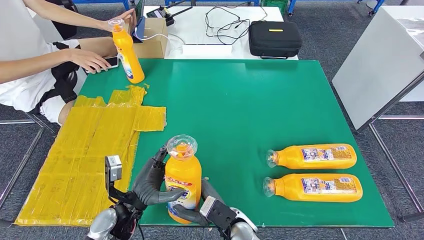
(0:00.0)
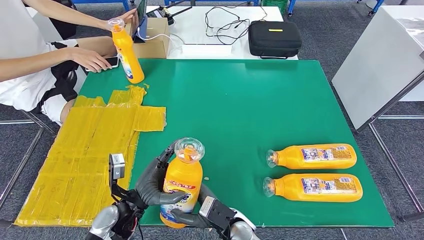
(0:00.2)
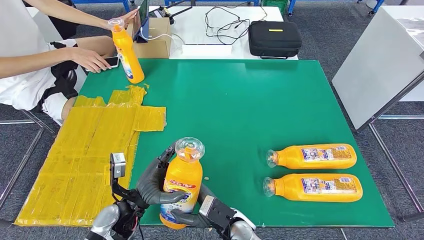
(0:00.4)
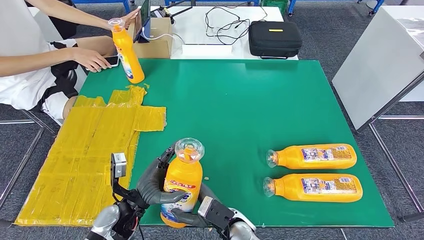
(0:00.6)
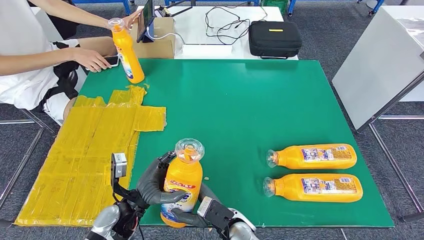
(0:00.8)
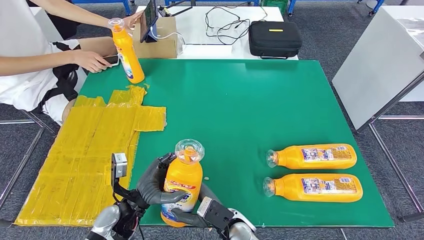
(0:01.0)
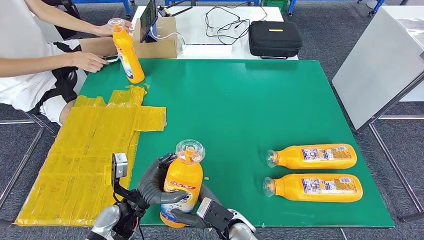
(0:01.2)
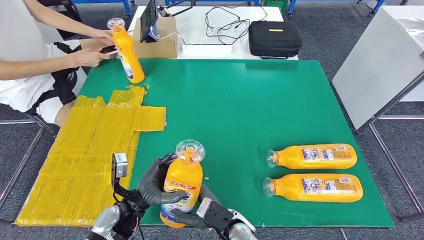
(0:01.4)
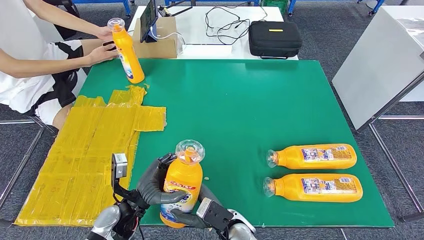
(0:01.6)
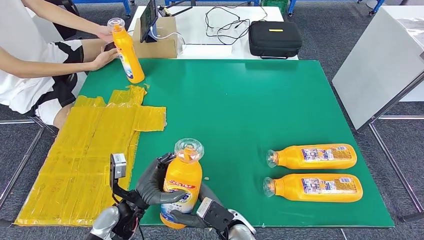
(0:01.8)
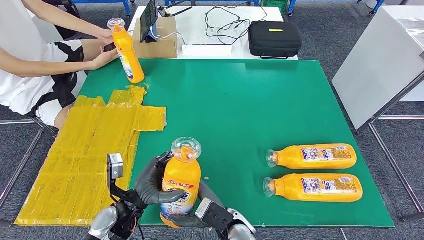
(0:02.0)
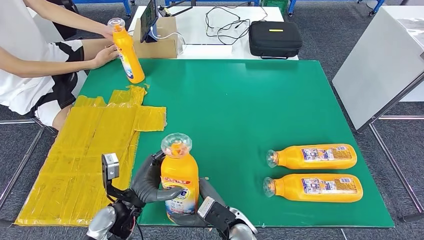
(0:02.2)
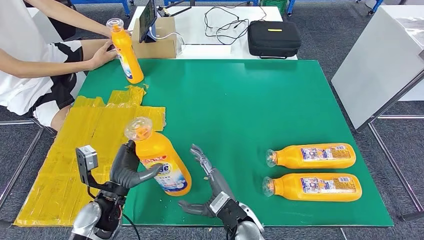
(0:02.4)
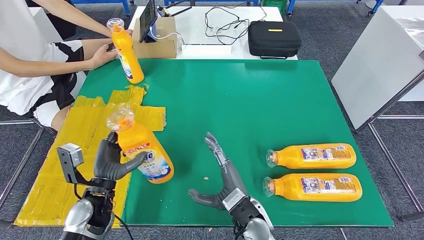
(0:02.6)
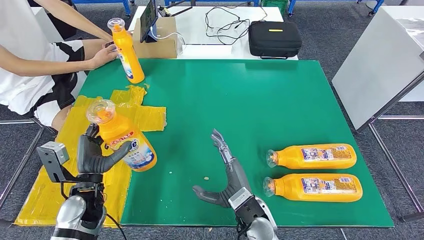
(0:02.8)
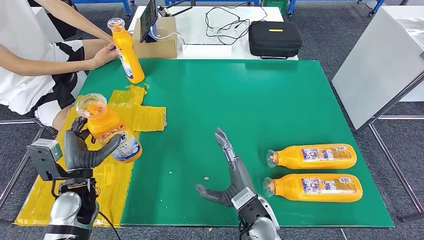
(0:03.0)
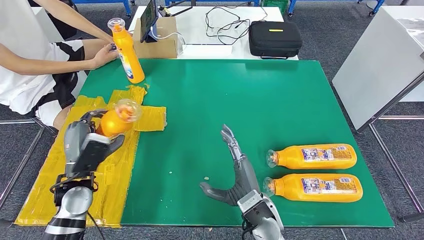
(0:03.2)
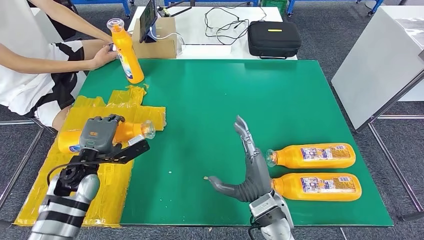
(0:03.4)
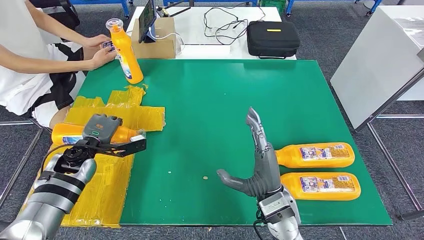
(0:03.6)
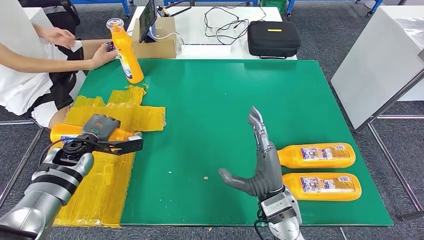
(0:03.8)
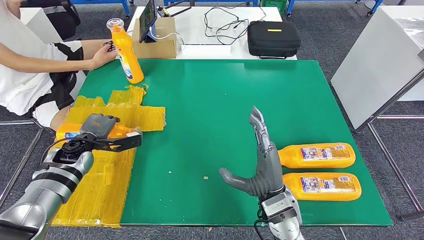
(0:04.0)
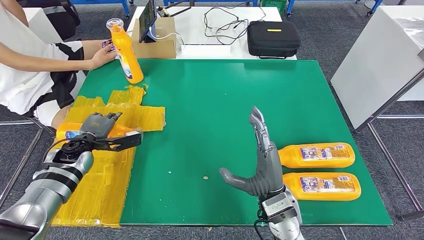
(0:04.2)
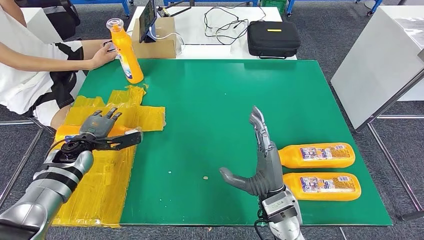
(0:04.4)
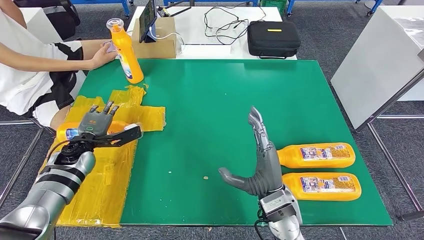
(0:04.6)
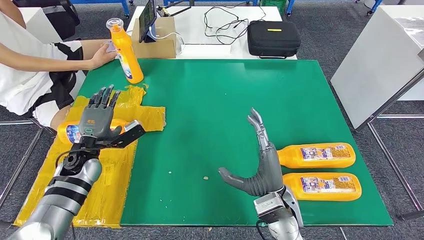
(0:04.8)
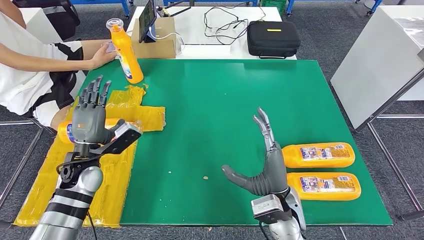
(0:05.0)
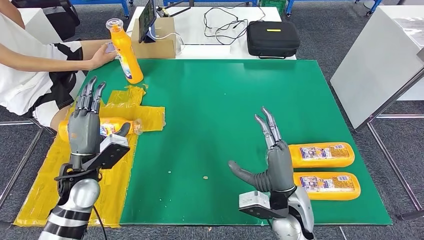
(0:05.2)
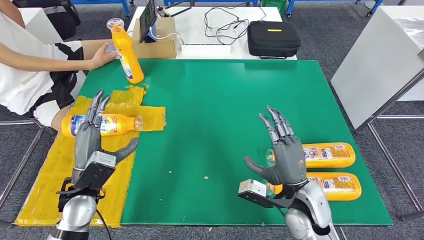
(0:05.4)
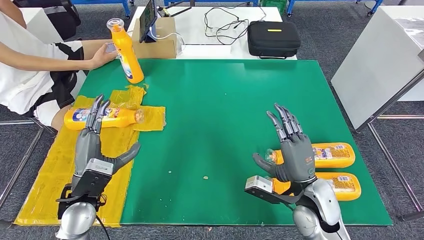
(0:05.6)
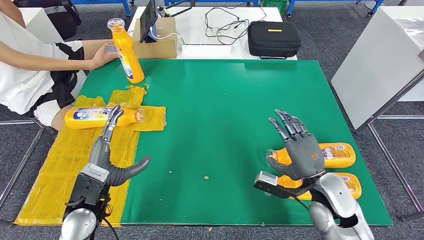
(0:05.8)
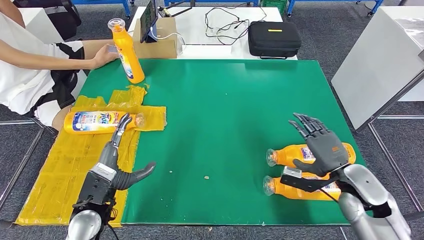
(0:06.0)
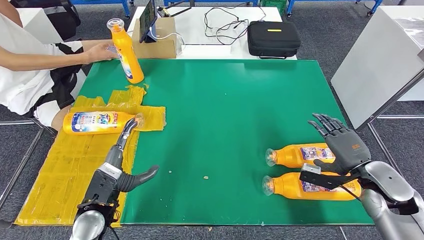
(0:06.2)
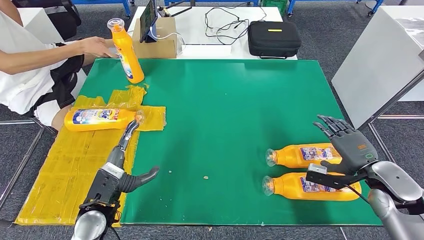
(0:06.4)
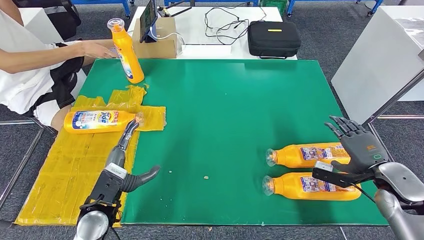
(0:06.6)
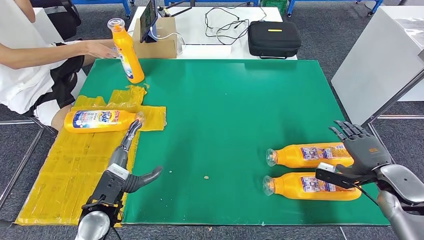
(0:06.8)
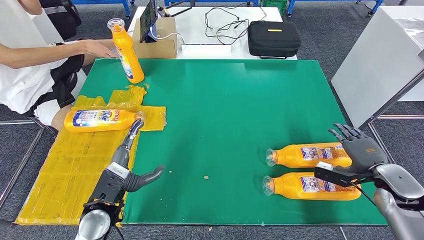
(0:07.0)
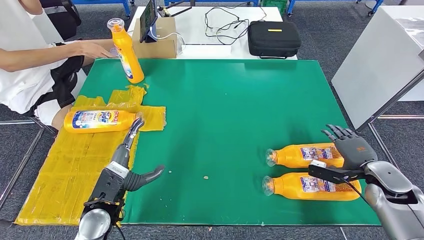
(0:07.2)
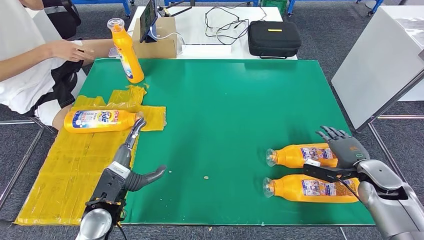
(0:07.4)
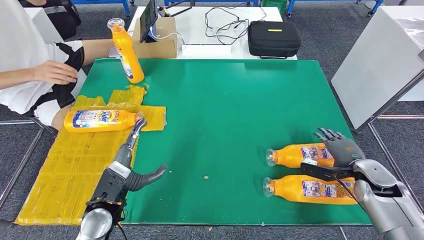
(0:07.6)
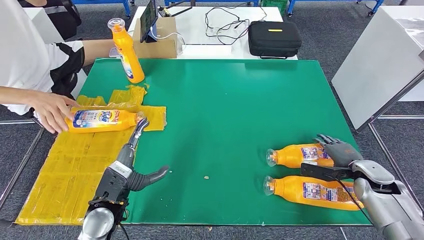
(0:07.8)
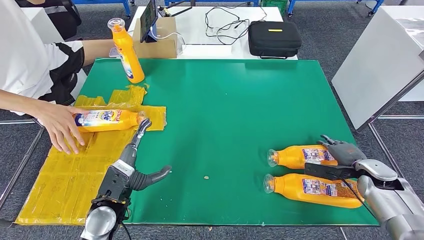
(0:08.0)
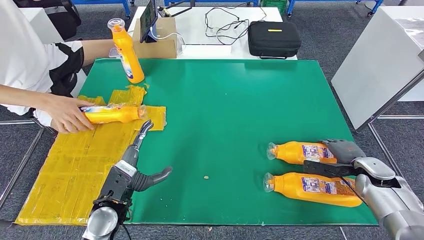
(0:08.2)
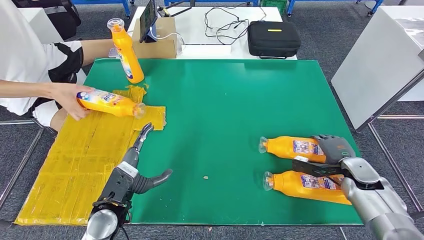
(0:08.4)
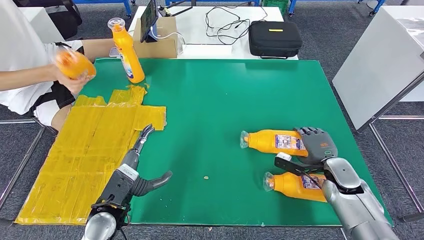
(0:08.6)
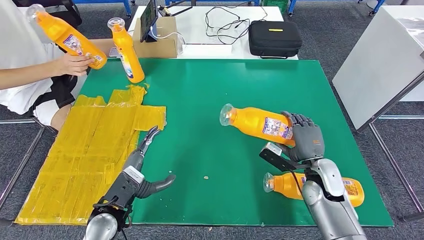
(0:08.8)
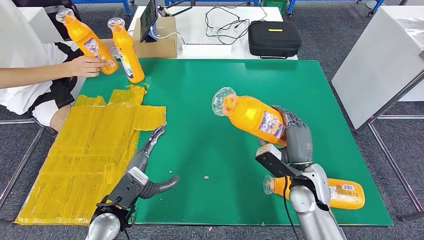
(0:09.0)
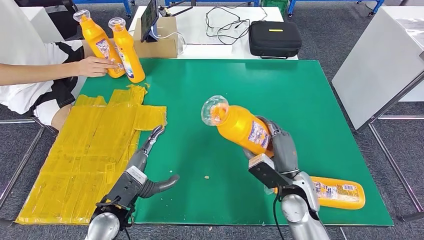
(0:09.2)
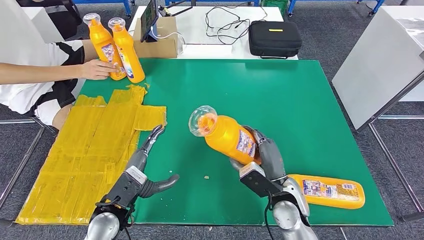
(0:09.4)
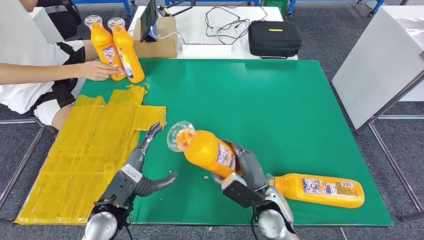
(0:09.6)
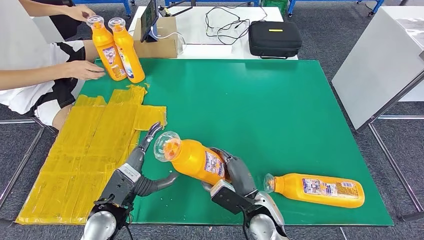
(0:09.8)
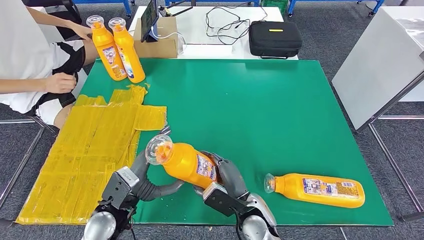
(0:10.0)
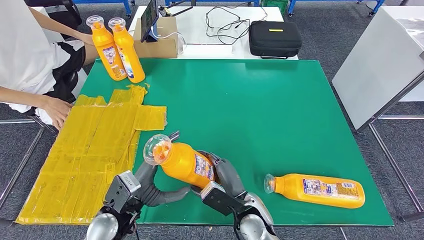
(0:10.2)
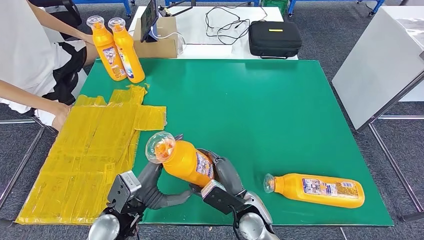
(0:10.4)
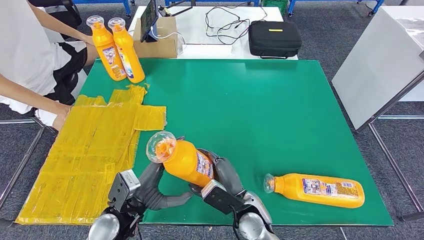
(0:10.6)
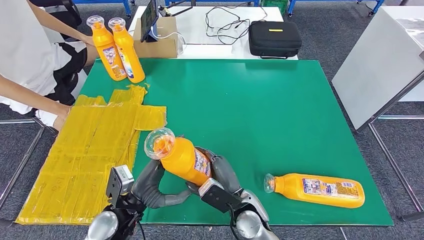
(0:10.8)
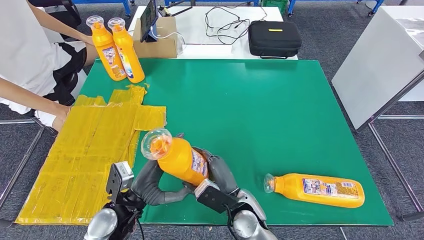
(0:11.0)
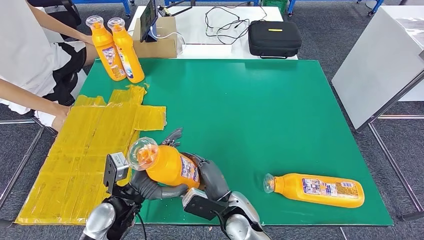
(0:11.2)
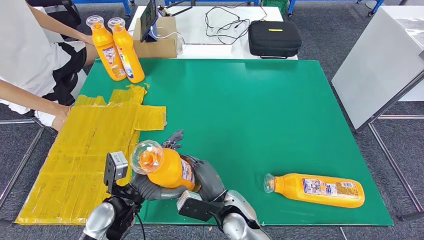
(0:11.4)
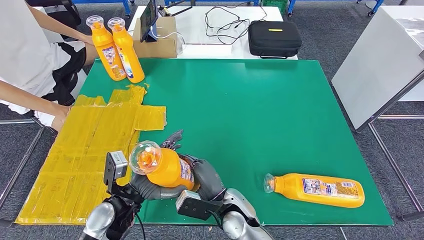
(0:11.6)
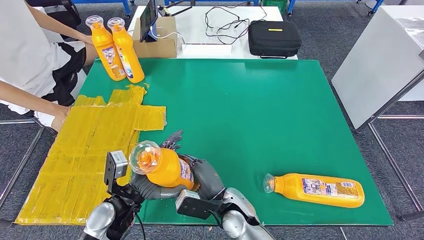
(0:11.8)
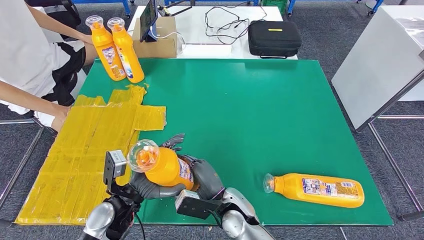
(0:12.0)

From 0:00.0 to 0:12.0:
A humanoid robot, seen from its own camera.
Step, from 0:00.0 to 0:05.6: Flip the fast-moving consumer goods bottle to the front side.
Step, from 0:05.8 to 0:10.2: Pick up the fast-moving consumer goods bottle from the table.
From 0:00.0 to 0:01.6: There are only small adjustments of the hands.
From 0:01.6 to 0:03.0: The right hand shifts about 5 cm upward. The left hand travels to the left and upward by roughly 10 cm.
From 0:06.0 to 0:07.6: The right hand travels to the right by approximately 10 cm.
From 0:10.4 to 0:12.0: There are only small adjustments of the hands.

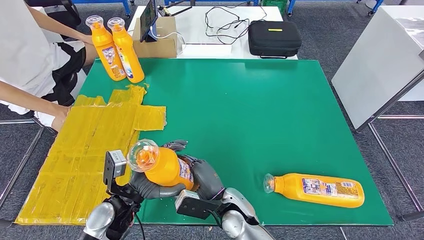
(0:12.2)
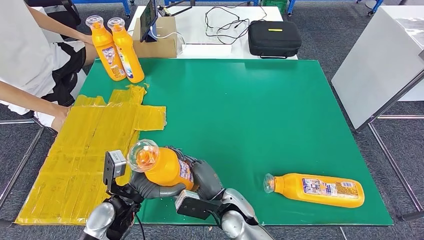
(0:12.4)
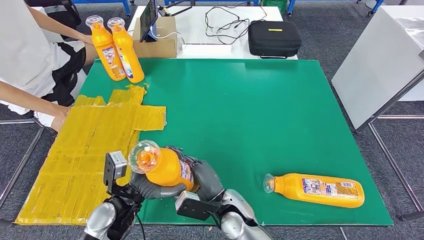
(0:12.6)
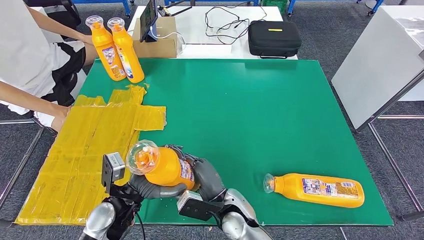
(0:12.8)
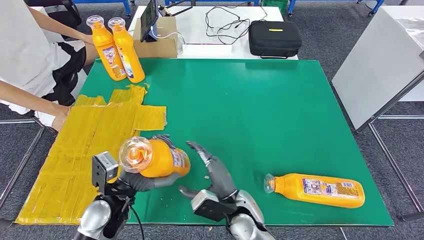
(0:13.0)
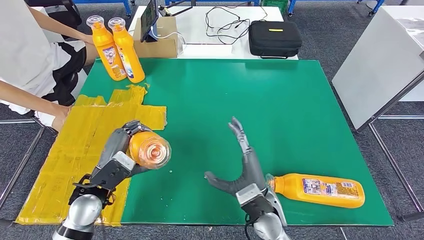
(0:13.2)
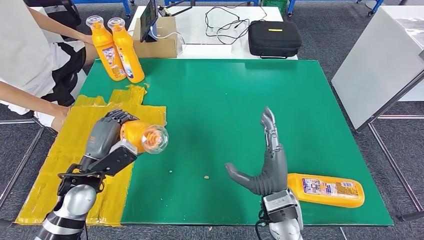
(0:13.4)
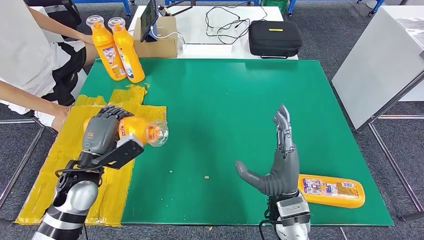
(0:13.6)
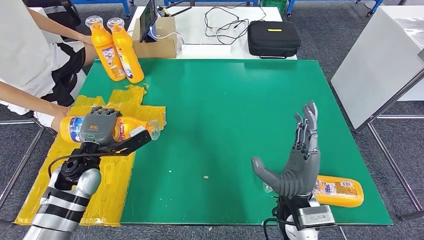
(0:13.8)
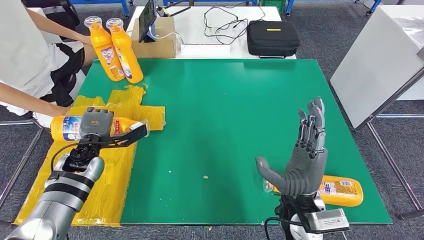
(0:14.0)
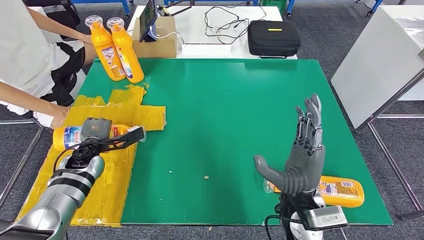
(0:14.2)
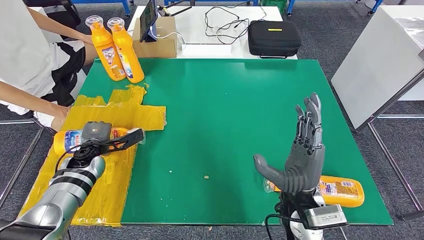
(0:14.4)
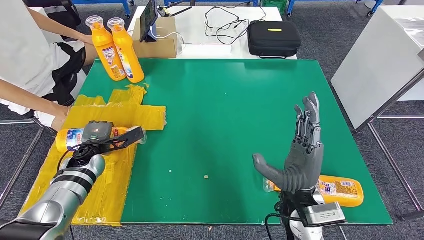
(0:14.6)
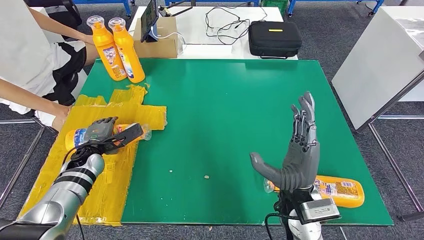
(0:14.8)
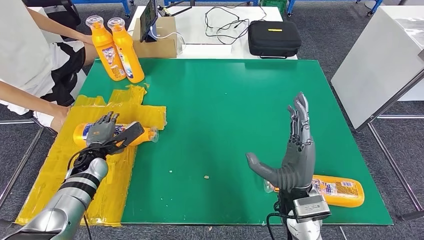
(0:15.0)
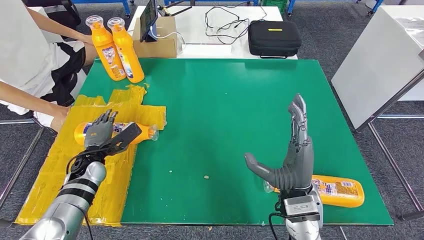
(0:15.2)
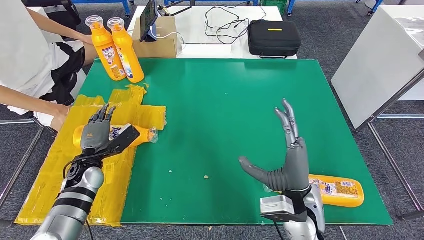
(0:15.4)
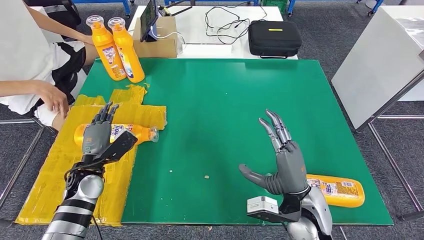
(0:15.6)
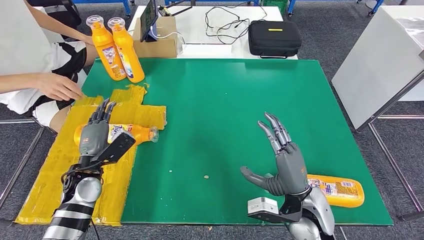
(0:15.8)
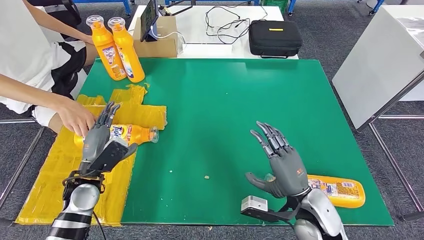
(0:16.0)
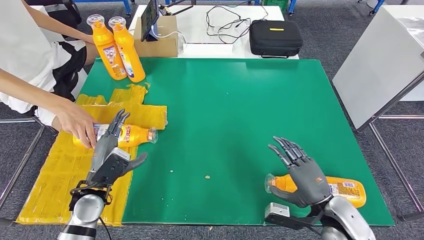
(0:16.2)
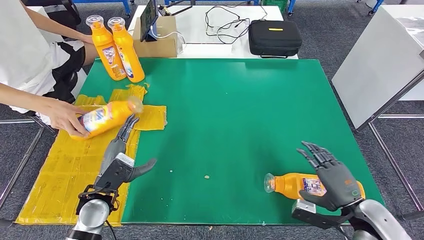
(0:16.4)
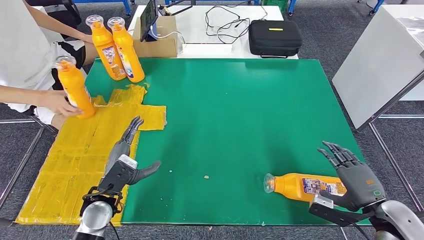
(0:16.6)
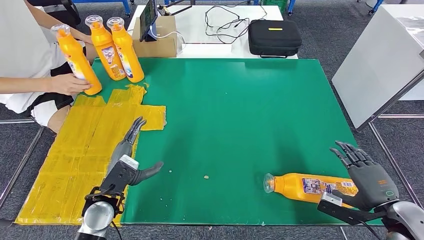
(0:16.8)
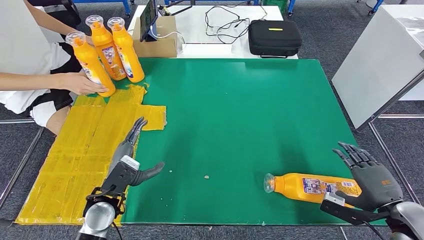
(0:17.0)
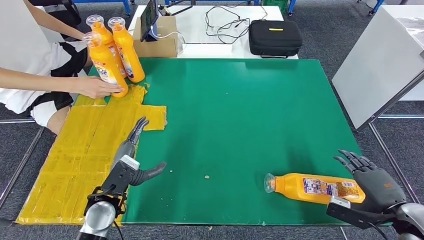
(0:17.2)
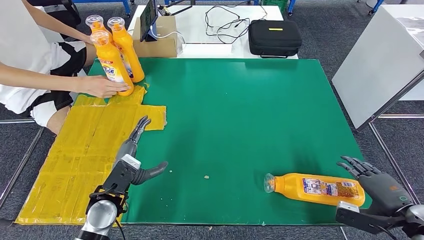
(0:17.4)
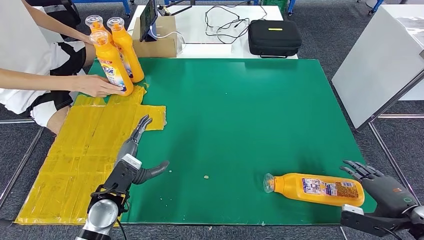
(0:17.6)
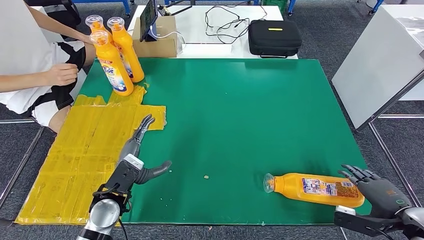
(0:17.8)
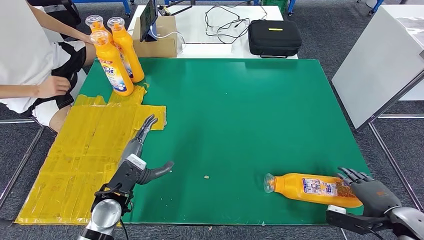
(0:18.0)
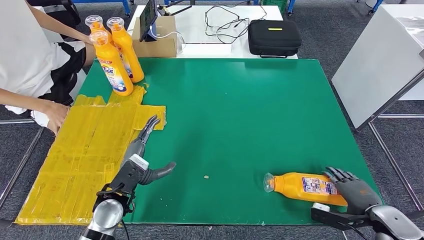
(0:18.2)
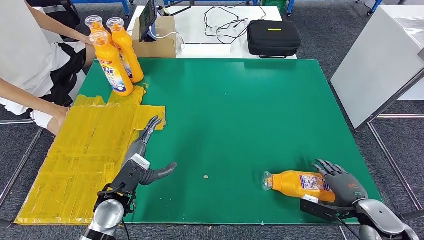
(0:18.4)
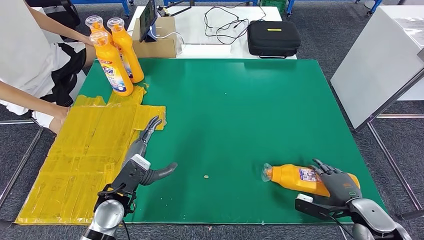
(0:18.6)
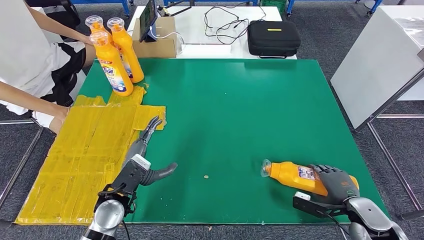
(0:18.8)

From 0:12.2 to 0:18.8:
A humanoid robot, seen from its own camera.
Step, from 0:12.2 to 0:16.8: Flip the fast-moving consumer goods bottle to the front side.
From 0:13.8 to 0:15.4: The left hand travels downward by about 5 cm.
From 0:17.2 to 0:18.8: The right hand shifts roughly 10 cm downward.
